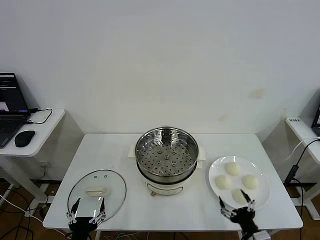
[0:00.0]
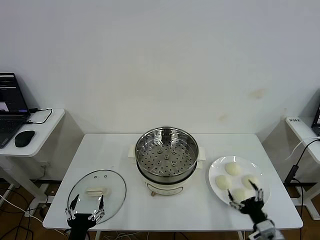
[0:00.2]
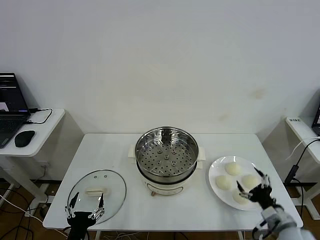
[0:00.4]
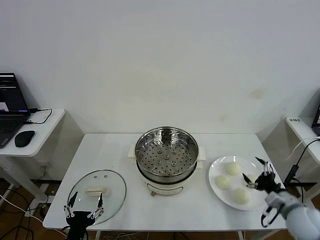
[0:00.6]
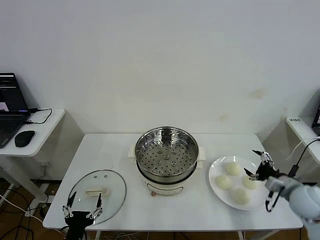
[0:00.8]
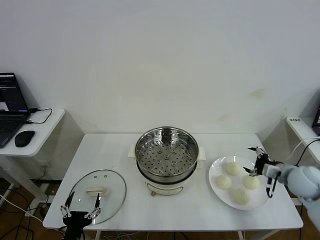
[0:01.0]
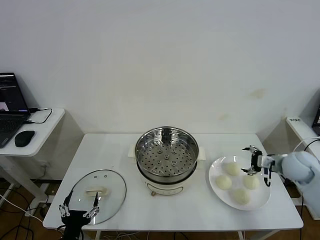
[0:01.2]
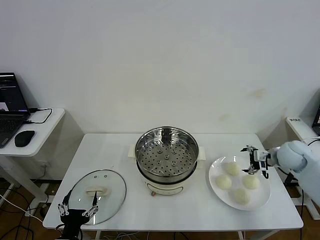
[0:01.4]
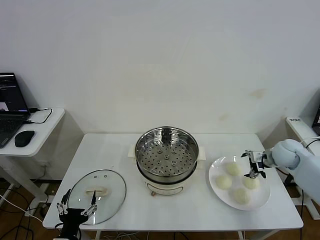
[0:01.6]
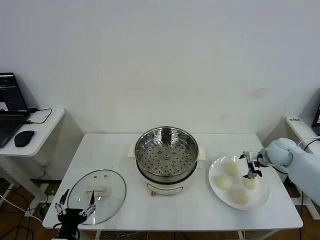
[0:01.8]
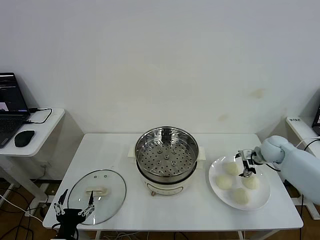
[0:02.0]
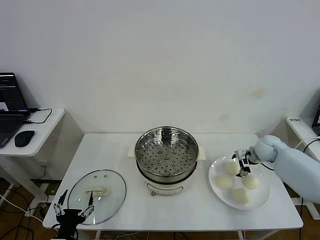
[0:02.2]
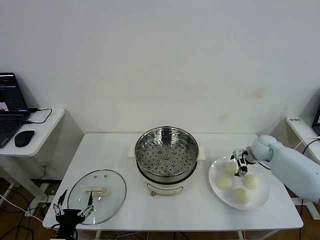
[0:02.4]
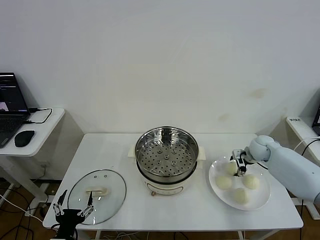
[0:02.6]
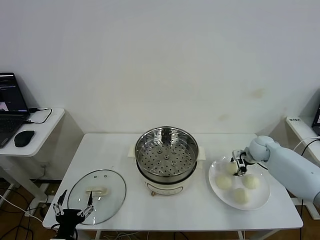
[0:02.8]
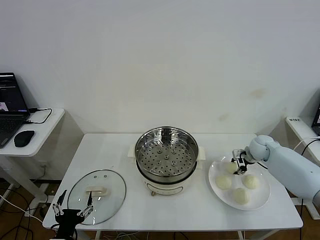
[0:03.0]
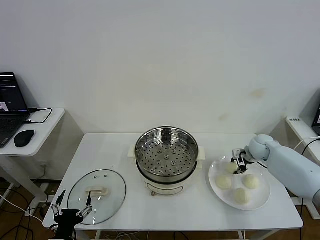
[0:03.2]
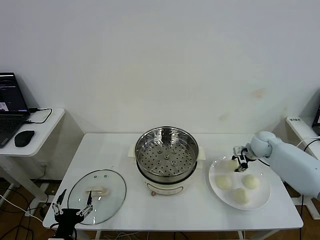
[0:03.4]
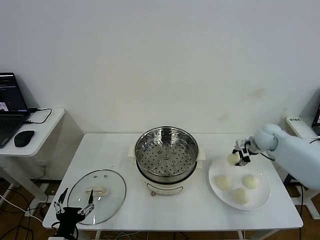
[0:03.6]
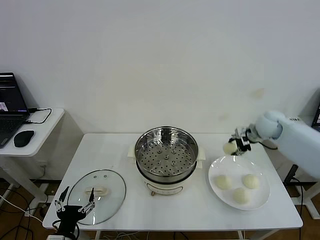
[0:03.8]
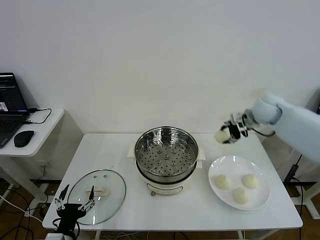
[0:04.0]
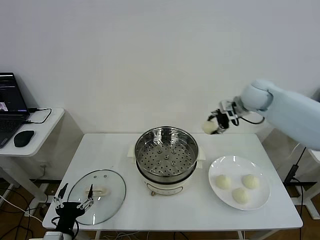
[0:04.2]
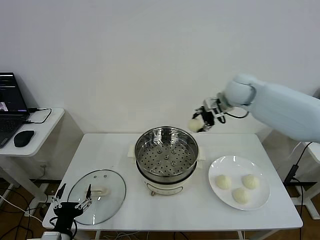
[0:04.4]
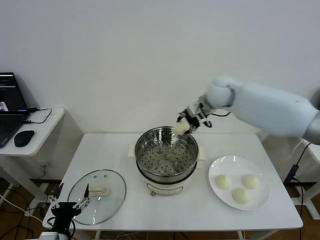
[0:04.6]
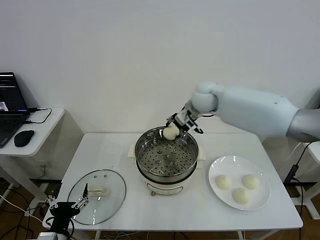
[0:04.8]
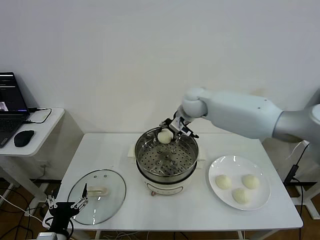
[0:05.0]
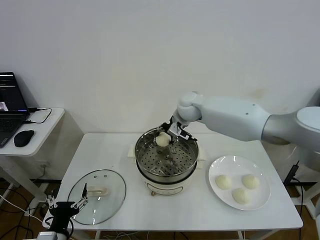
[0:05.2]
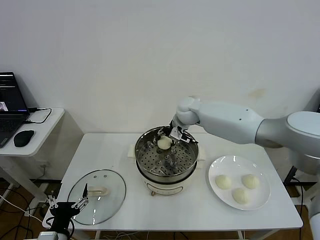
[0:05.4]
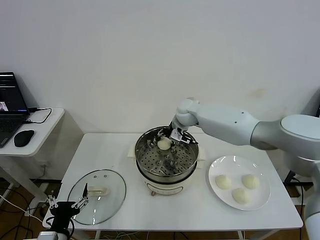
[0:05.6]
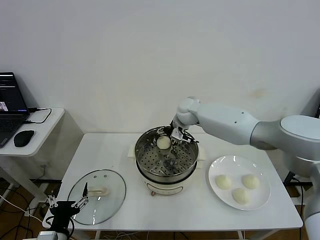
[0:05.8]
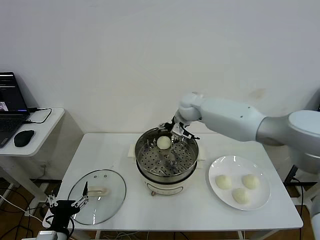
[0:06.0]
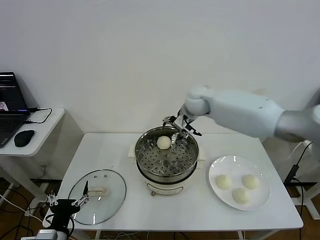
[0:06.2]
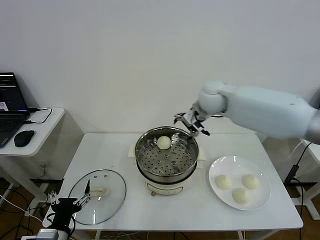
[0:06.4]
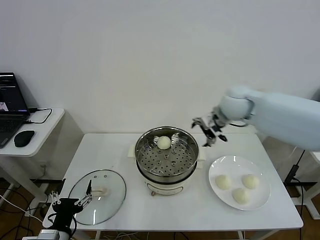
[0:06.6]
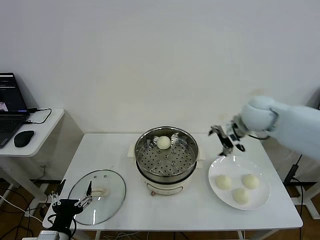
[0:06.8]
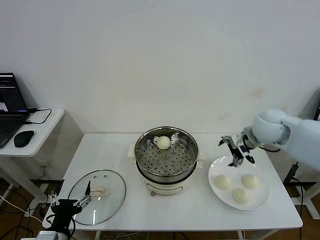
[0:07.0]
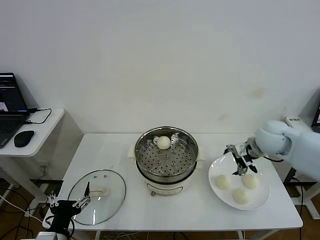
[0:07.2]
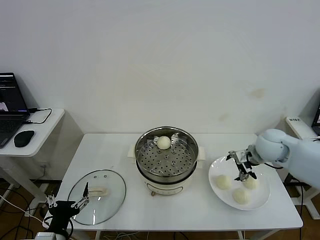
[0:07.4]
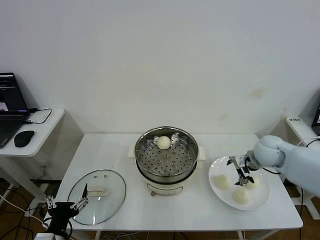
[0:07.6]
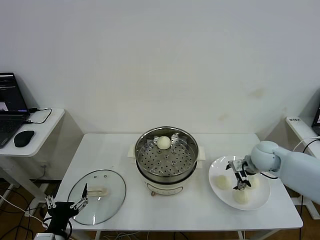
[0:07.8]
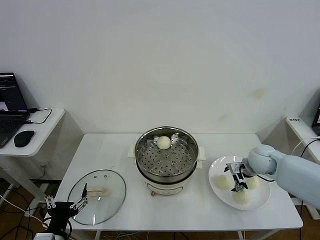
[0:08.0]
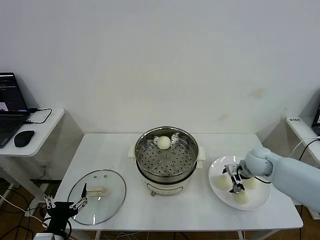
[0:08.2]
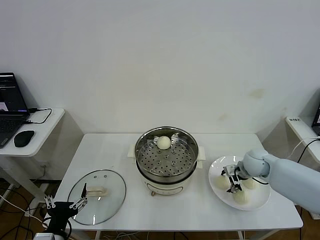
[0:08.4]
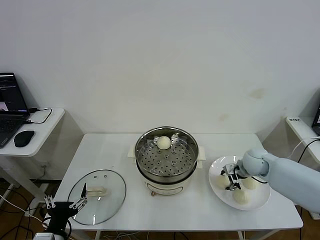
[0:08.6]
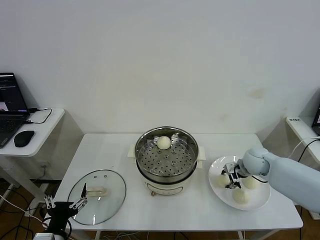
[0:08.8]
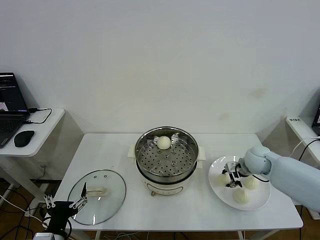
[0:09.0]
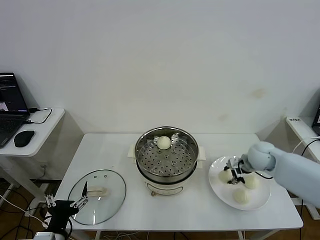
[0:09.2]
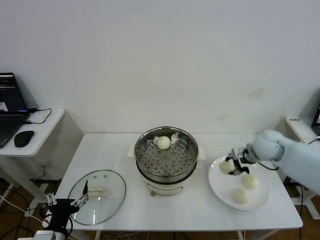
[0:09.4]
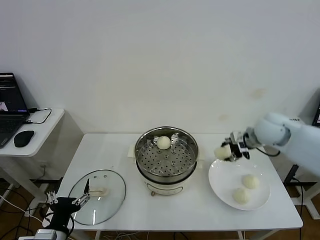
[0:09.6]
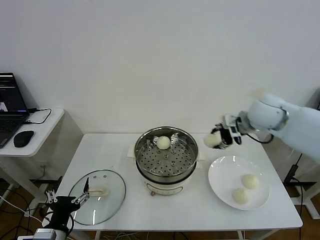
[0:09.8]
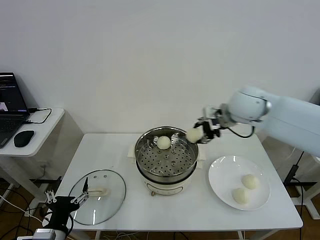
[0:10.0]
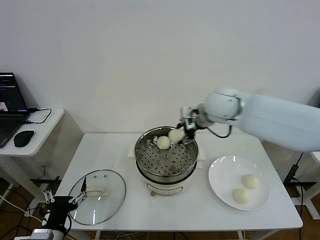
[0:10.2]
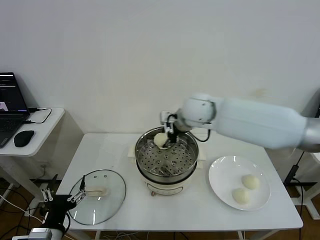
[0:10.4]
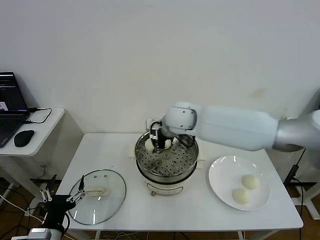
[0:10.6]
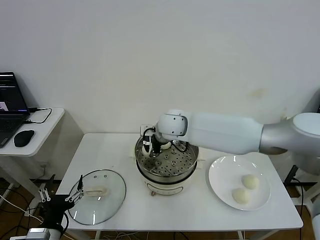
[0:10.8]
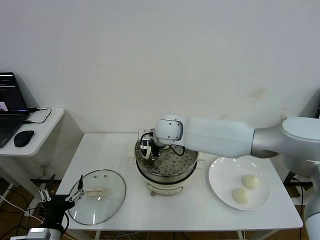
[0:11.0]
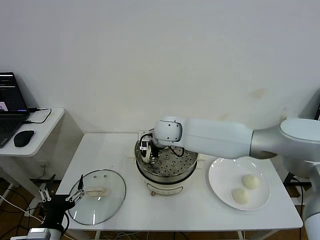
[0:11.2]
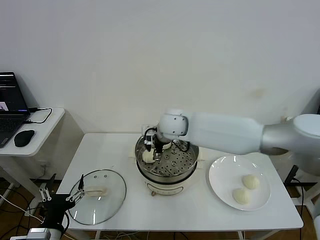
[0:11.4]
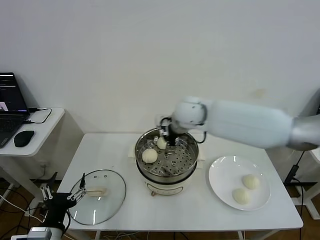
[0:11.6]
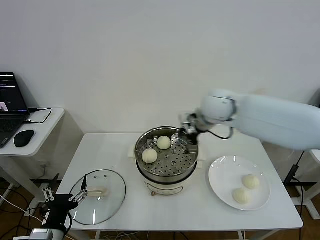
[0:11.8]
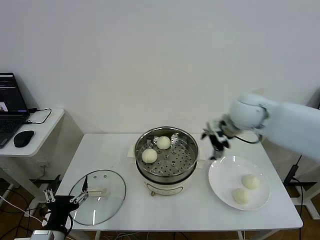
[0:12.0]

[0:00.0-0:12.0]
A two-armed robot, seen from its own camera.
Step, 0.0 to 2.8 s: Grasp the baozi in the plate with right gripper.
Step, 3.0 to 5.6 s: Place the baozi on the steamer with right gripper.
Step, 5.8 to 8.6 s: Grasp the baozi in the plate with right gripper.
Step, 8.8 to 11.0 s: Place the baozi on the steamer with right gripper.
1.6 to 3.0 s: The right gripper is displaced forward by about 5 cm, and closes its fingers.
3.0 to 4.4 s: The right gripper goes some 30 cm upward and to the left.
4.4 to 6.0 s: The right gripper travels to the left and downward by approximately 10 cm, and opens.
6.0 to 7.6 s: The right gripper heads to the right, backward and downward, covering roughly 30 cm.
7.6 to 9.0 s: The right gripper shifts by about 5 cm, and closes its fingers.
9.0 to 10.4 s: The right gripper goes some 30 cm to the left and upward.
10.4 to 12.0 s: The right gripper travels to the right by some 20 cm, and opens up.

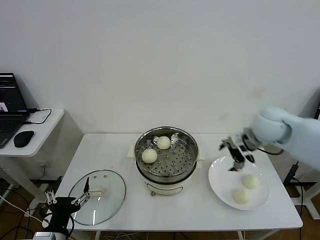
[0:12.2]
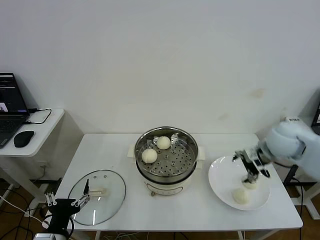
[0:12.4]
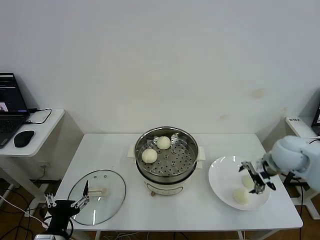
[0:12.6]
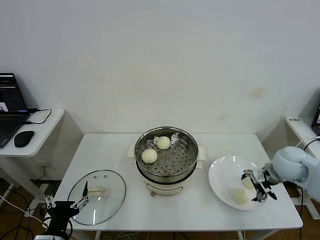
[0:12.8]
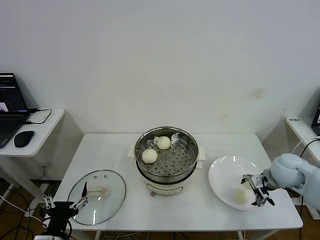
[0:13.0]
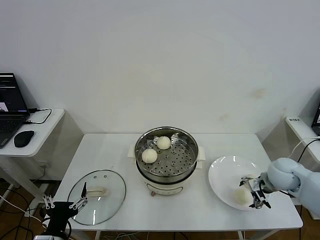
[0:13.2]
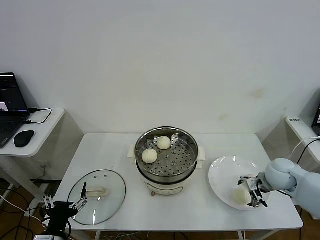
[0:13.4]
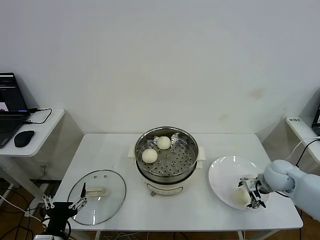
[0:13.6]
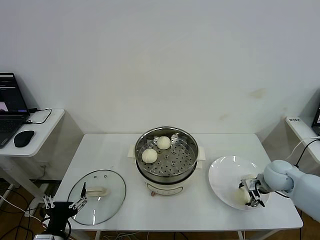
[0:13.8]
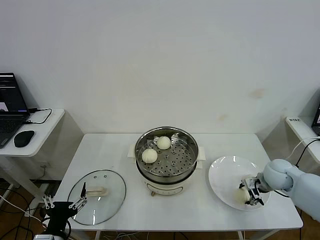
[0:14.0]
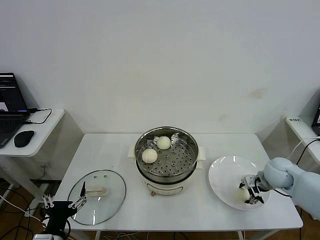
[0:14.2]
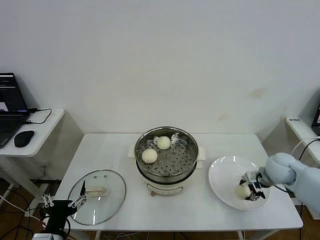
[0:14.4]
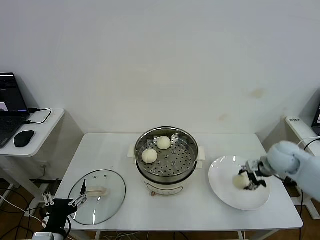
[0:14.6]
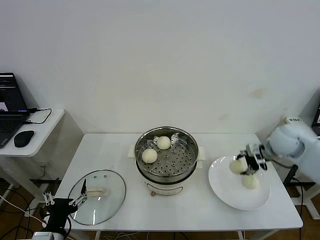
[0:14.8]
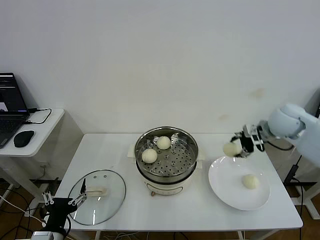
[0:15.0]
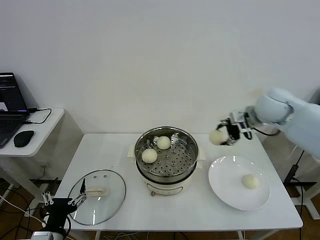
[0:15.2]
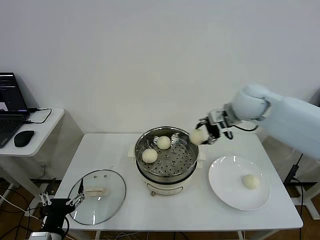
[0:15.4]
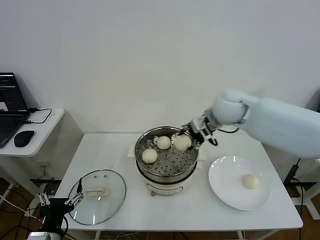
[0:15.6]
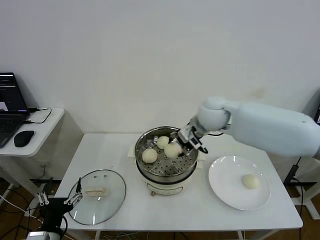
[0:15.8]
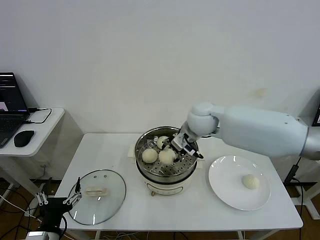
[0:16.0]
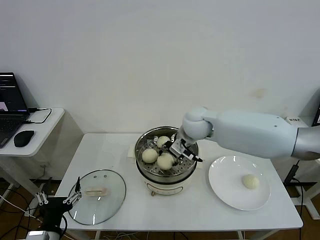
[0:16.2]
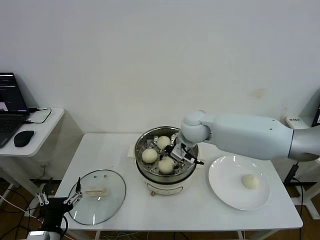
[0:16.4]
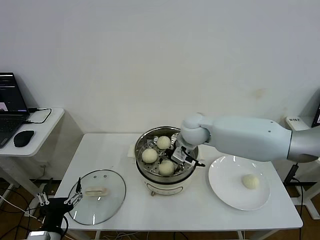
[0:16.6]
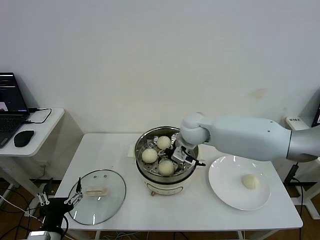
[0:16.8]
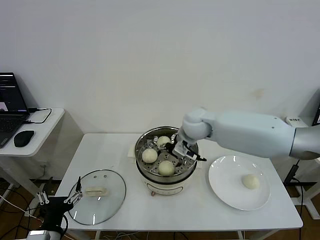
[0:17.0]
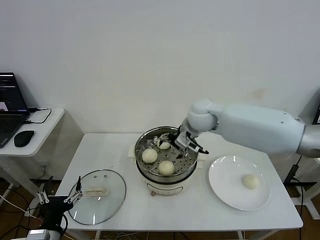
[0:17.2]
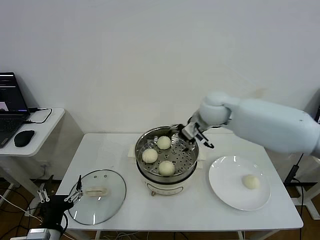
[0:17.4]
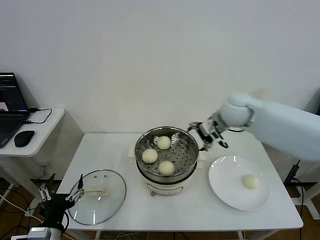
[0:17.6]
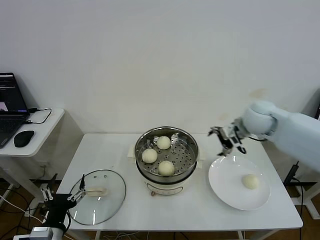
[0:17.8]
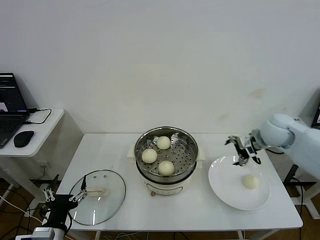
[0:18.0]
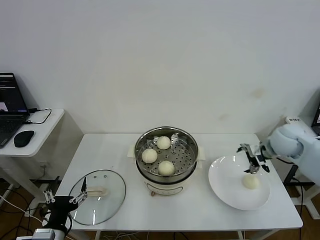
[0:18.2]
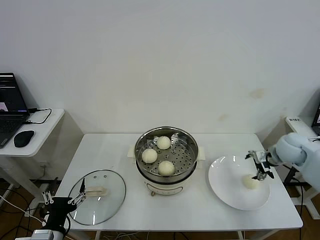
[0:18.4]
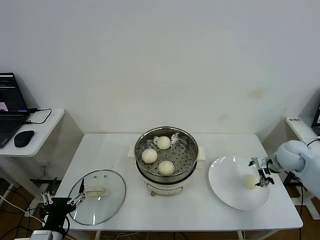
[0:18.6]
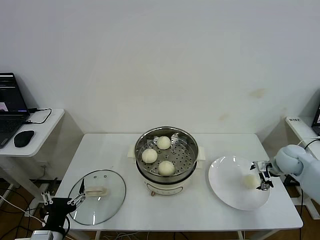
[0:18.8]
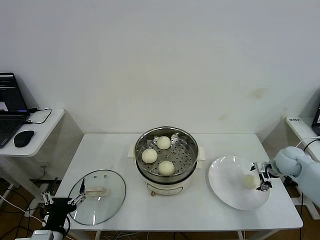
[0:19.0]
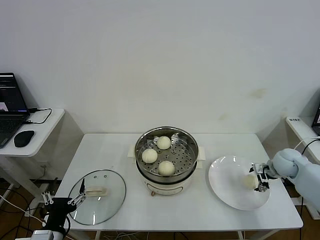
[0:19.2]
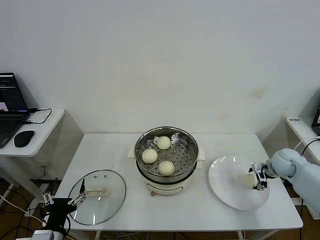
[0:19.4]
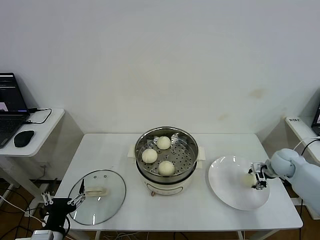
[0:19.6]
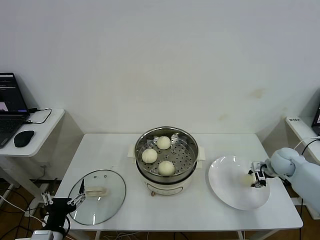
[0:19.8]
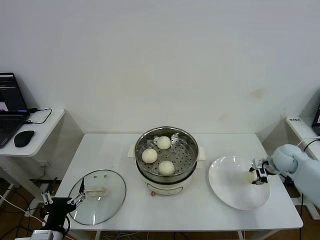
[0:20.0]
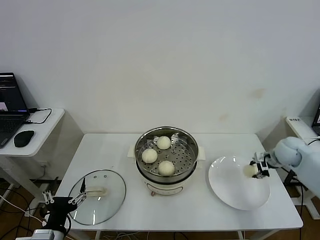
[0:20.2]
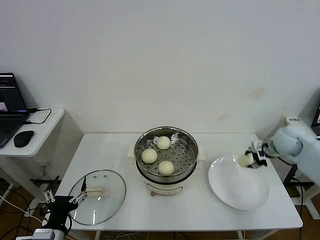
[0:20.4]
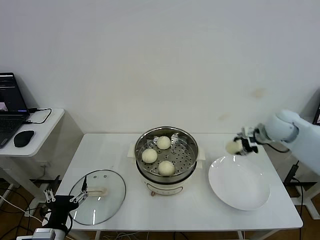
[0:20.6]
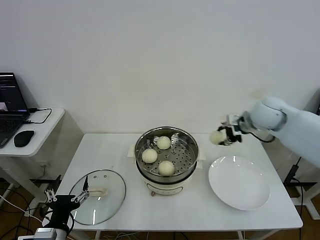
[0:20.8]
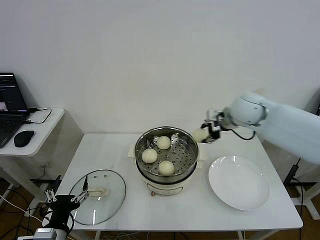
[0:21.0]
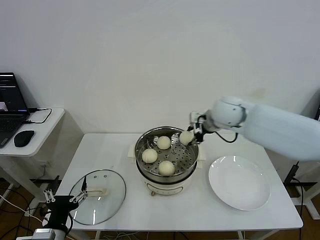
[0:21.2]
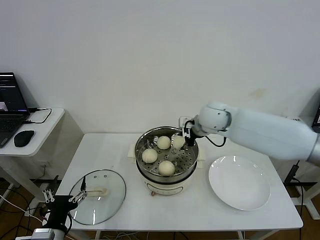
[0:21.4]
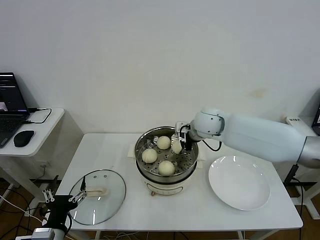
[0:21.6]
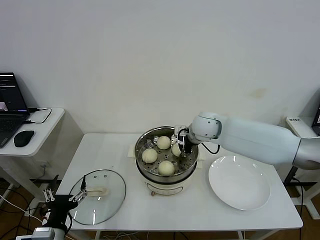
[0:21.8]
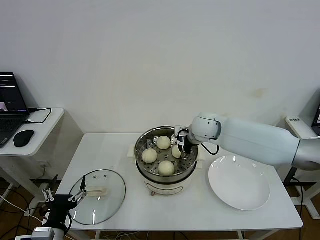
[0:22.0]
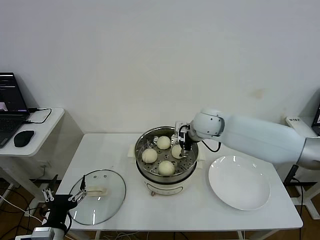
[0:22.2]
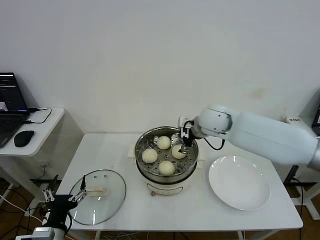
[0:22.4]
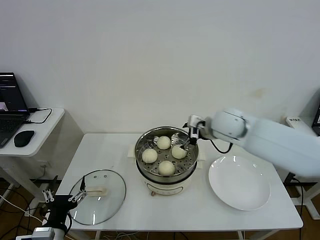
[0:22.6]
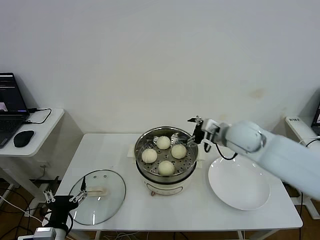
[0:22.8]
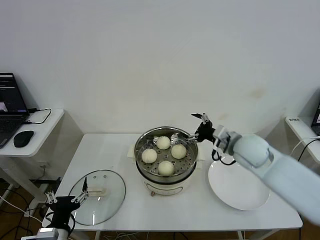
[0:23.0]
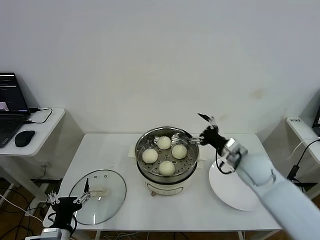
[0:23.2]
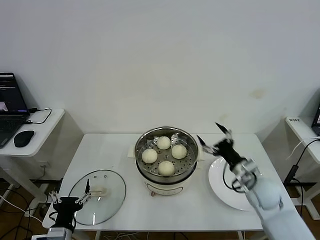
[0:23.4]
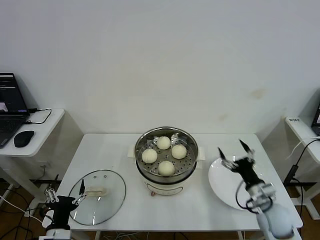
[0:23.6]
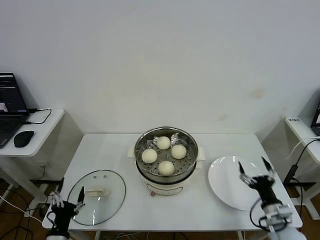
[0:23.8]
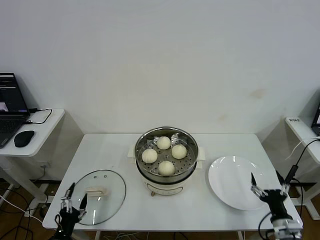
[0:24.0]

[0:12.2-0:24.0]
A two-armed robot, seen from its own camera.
Step, 12.2 to 13.8 s: Grasp the baozi in the plate with right gripper.
Step, 14.0 to 16.8 s: Place the baozi on the steamer with right gripper.
Step, 17.0 to 19.6 s: Grasp the baozi in the plate with right gripper.
Step, 19.8 to 22.0 s: Place the baozi on the steamer with right gripper.
12.2 to 13.6 s: The right gripper moves downward and to the right, roughly 20 cm.
13.6 to 15.2 s: The right gripper travels upward, forward and to the left by approximately 25 cm, and closes.
15.2 to 16.6 s: The right gripper moves to the left and downward, approximately 20 cm.
16.6 to 18.2 s: The right gripper heads to the right, covering roughly 30 cm, and opens.
18.2 to 19.6 s: The right gripper is displaced downward and to the right by some 15 cm, and closes its fingers.
19.6 to 21.0 s: The right gripper is displaced upward and to the left by roughly 30 cm, and closes.
21.0 to 22.6 s: The right gripper travels to the left by roughly 5 cm, and opens its fingers.
22.6 to 24.0 s: The left gripper heads downward, covering about 10 cm; the right gripper goes some 40 cm backward, downward and to the right.
